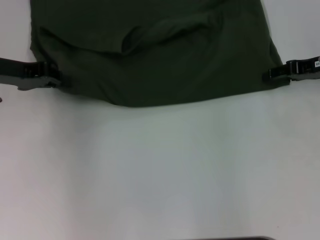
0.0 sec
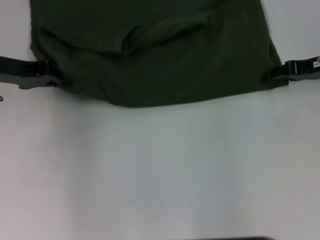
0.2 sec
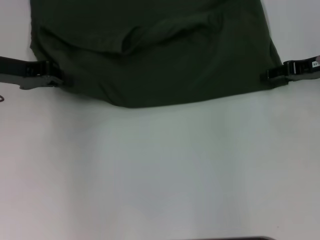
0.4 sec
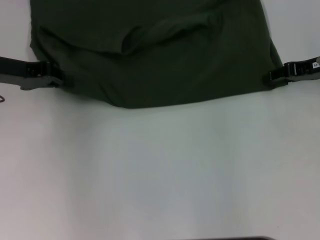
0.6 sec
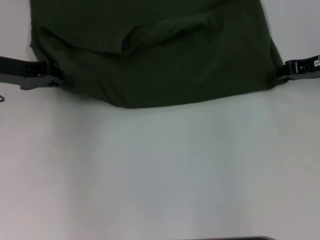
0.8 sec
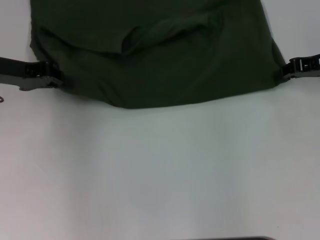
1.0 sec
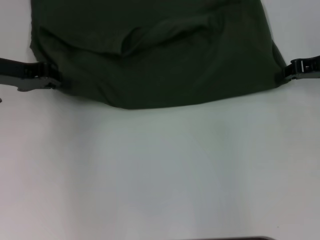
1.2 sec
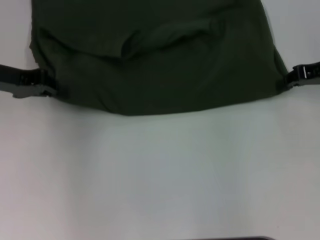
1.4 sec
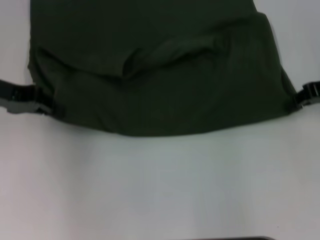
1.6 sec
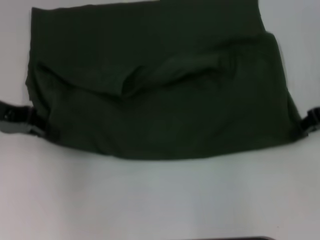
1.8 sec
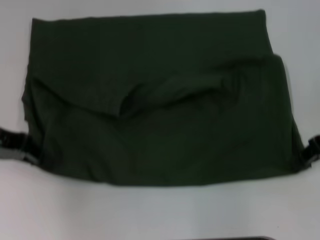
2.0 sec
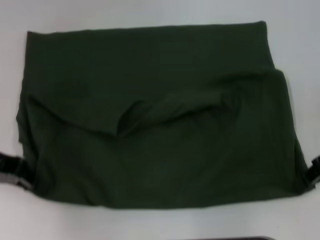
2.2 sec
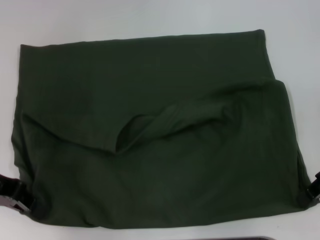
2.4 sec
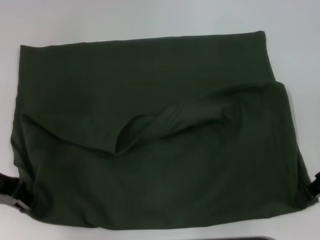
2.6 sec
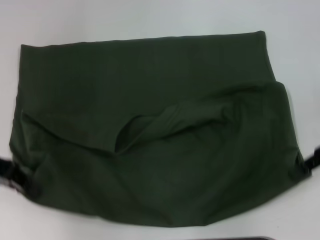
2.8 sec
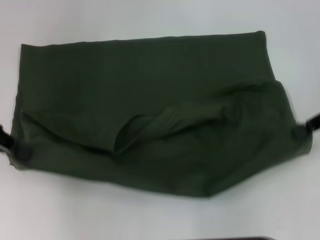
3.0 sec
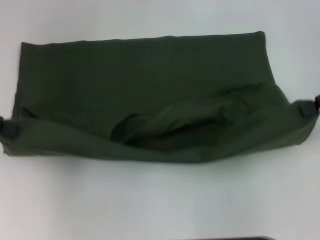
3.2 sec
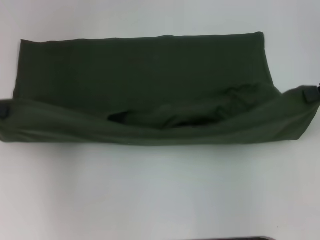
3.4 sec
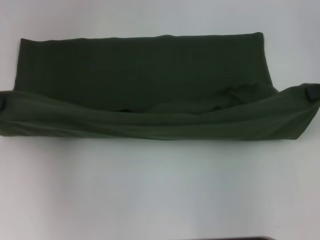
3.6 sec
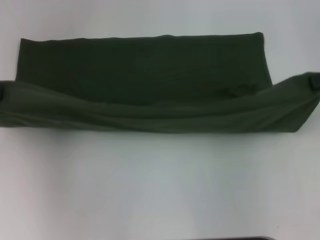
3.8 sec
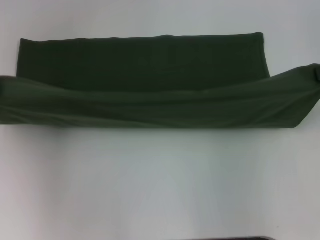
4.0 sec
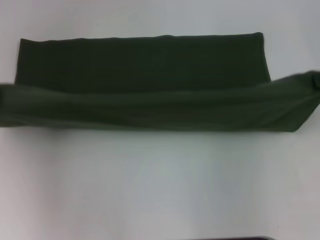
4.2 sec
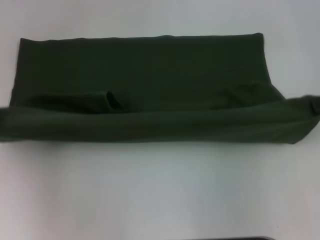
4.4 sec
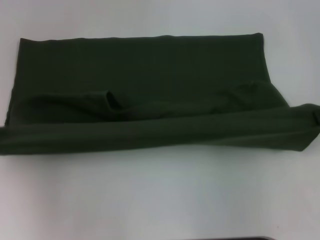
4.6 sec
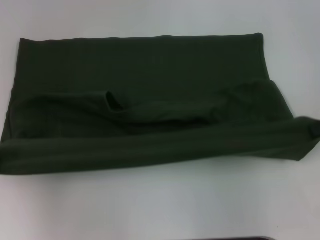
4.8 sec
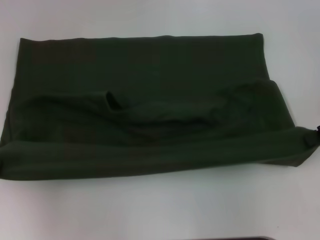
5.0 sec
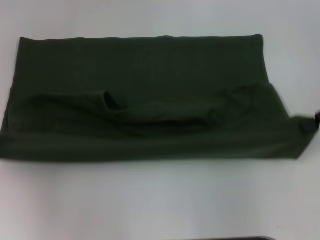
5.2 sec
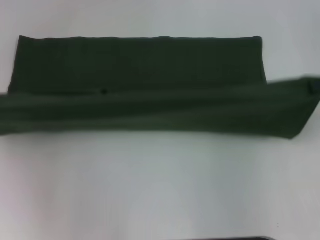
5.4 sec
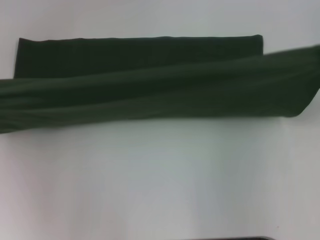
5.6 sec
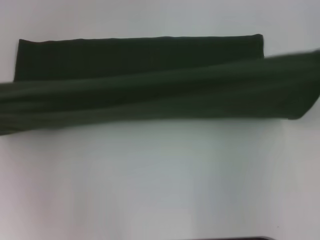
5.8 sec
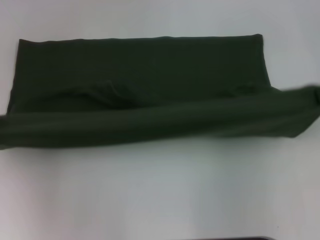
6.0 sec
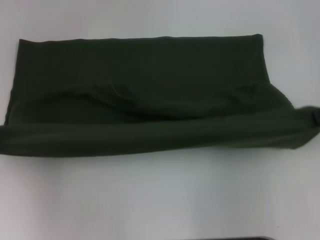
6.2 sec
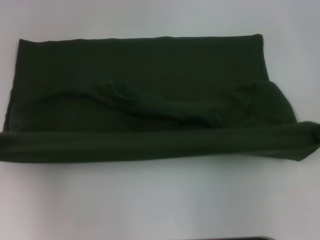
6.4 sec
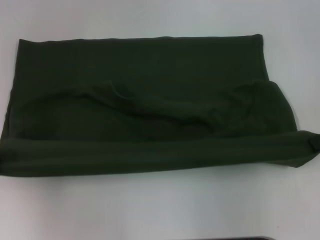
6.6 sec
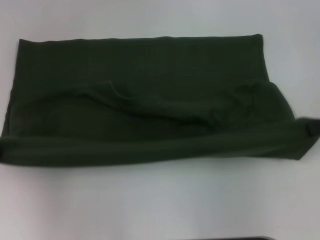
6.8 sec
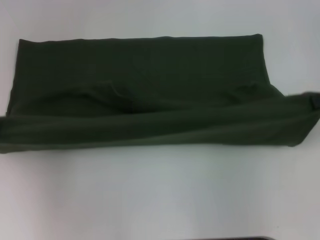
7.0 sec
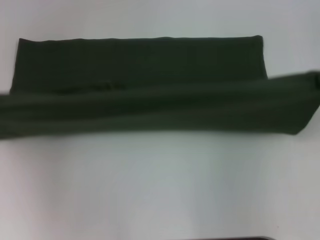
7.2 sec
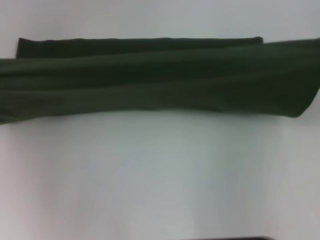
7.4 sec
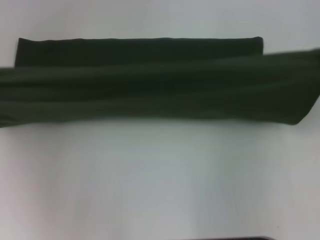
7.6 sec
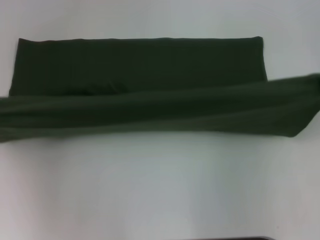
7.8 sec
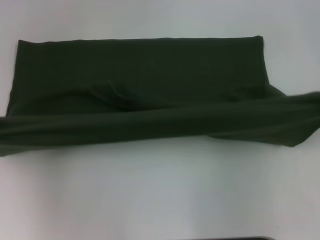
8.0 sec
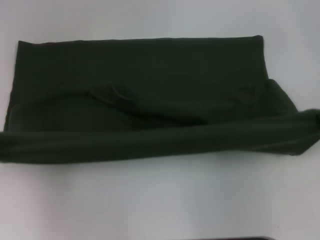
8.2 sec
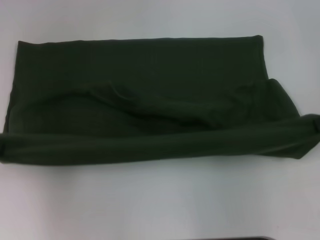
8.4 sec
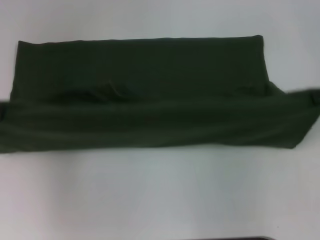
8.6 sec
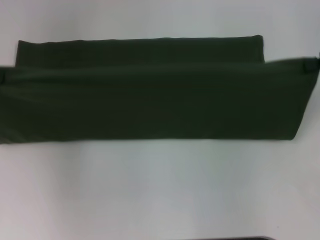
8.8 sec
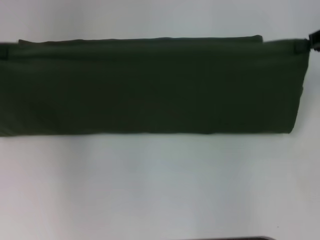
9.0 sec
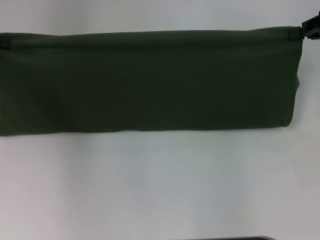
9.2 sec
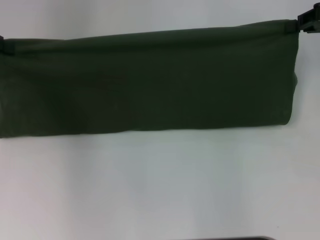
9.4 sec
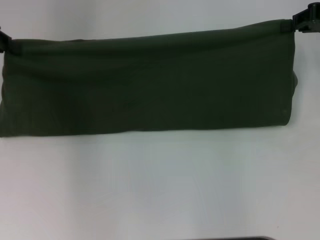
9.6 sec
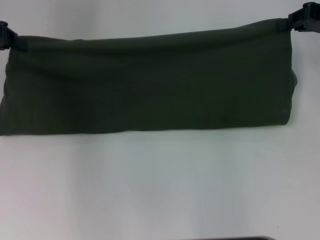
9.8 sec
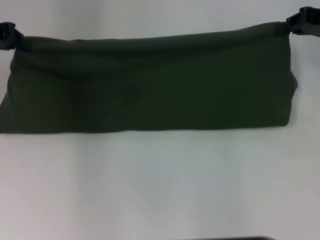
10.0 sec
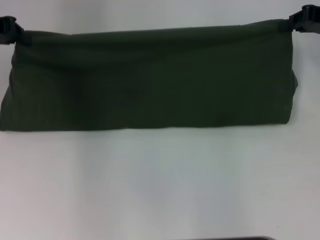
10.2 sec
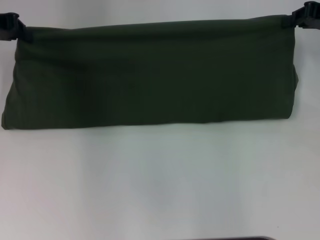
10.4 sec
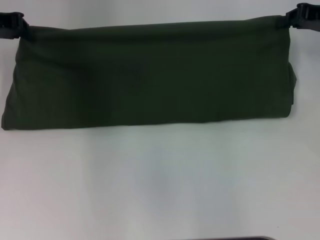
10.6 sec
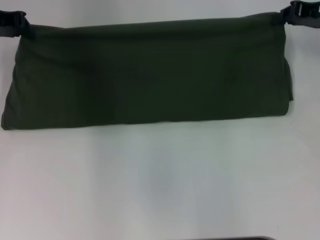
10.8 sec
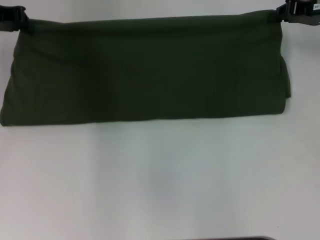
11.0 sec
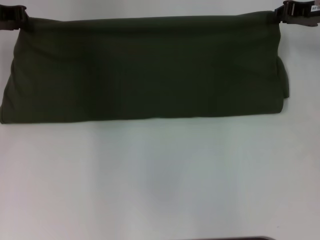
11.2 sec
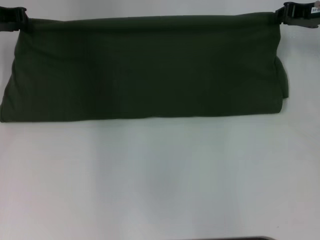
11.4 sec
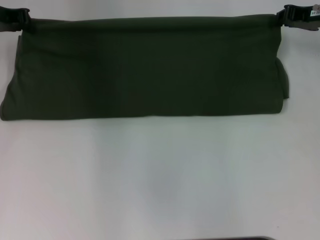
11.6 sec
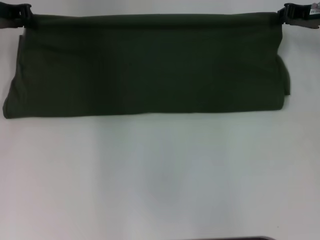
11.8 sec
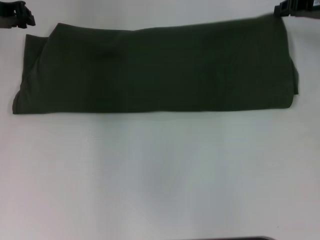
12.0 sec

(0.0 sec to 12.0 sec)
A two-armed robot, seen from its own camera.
Step, 0.0 sec - 2.2 sec: Pull the clothes with your left hand.
Step, 0.0 sec - 2.2 sec: Pull the clothes with your right hand.
0.0 sec - 1.6 sec: The right gripper closes its fingers.
1.6 sec - 3.0 sec: The left gripper ends up roughly 5 cm from where it was.
3.0 sec - 4.4 sec: The left gripper moves to the left, roughly 5 cm.
4.4 sec - 7.6 sec: The grippers move only a little.
7.6 sec - 9.0 sec: The left gripper moves forward, approximately 5 cm. The right gripper shifts by approximately 5 cm.
9.0 sec - 10.4 sec: The left gripper heads to the right, covering approximately 5 cm.
10.4 sec - 12.0 sec: The grippers stay close to where they were, moving slightly.

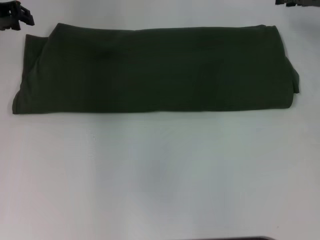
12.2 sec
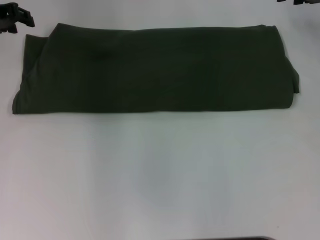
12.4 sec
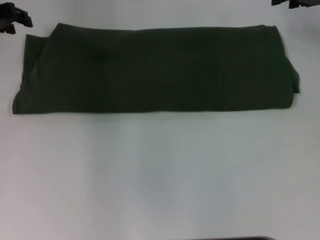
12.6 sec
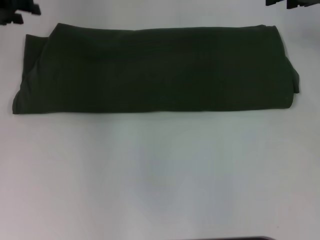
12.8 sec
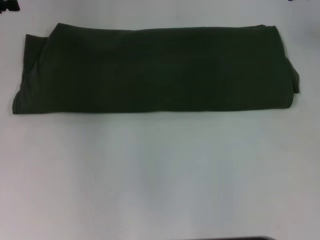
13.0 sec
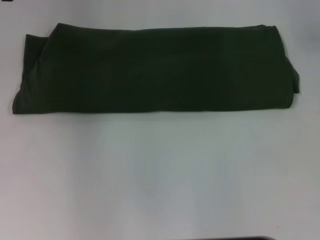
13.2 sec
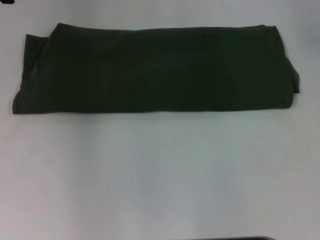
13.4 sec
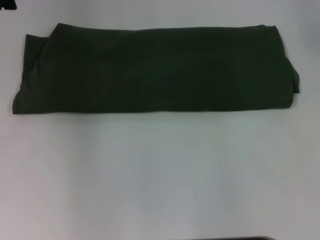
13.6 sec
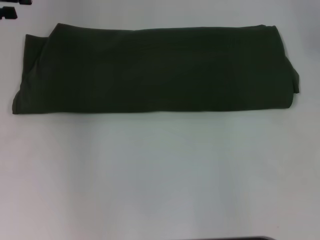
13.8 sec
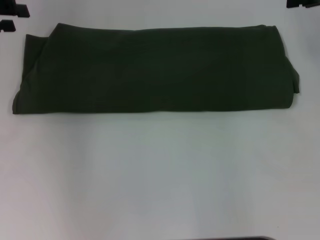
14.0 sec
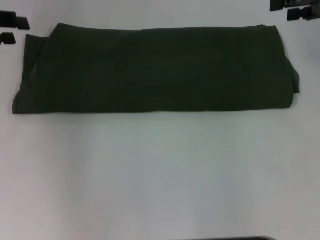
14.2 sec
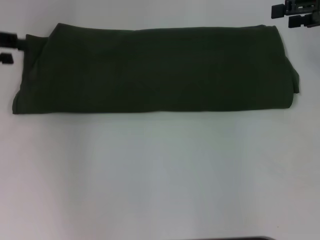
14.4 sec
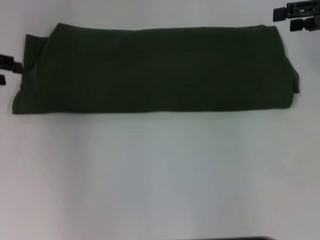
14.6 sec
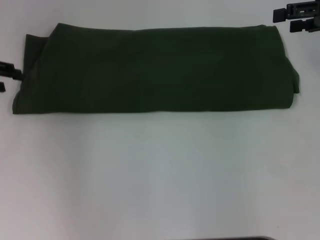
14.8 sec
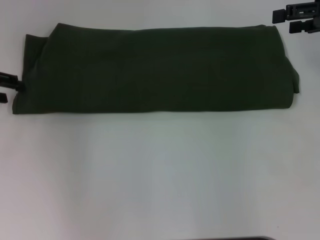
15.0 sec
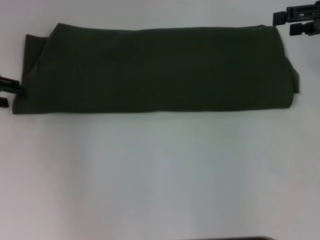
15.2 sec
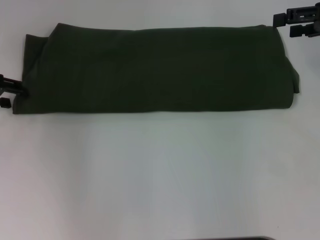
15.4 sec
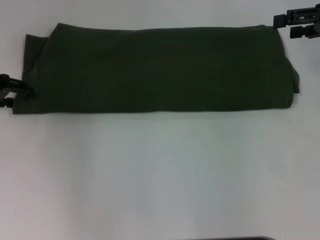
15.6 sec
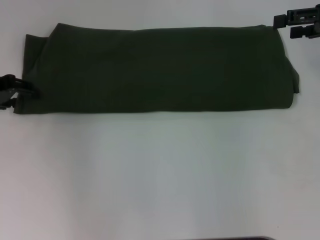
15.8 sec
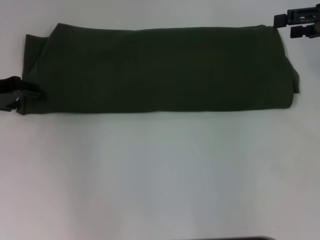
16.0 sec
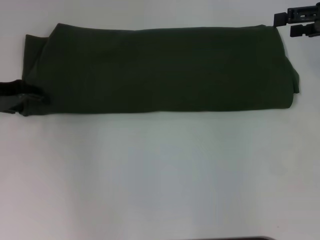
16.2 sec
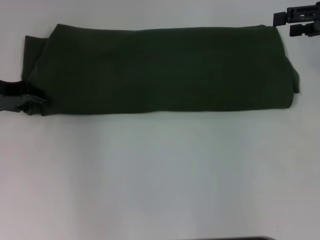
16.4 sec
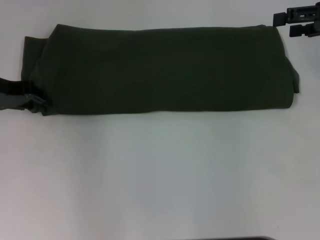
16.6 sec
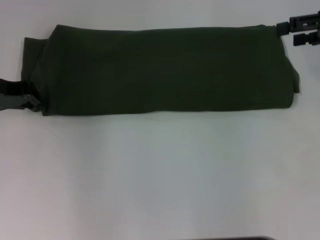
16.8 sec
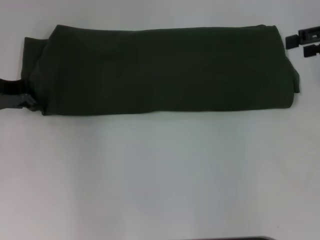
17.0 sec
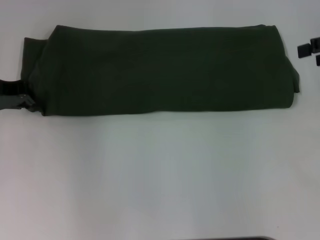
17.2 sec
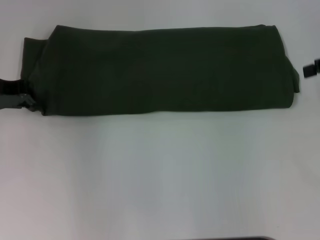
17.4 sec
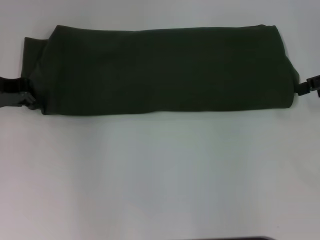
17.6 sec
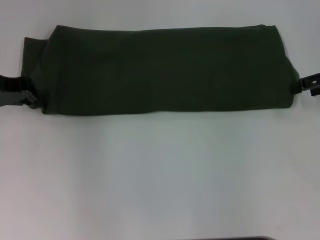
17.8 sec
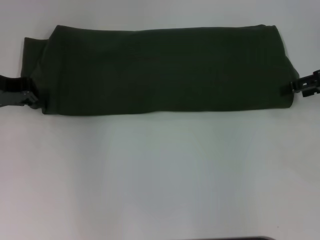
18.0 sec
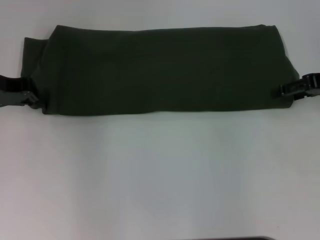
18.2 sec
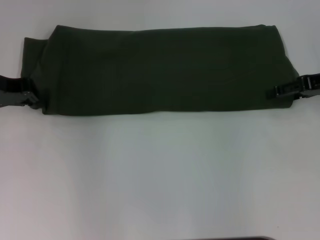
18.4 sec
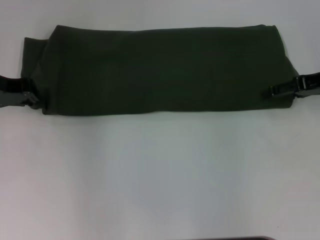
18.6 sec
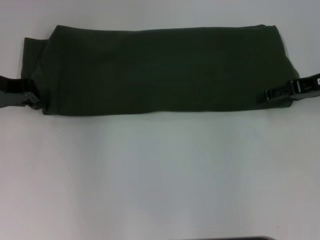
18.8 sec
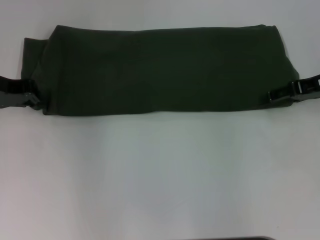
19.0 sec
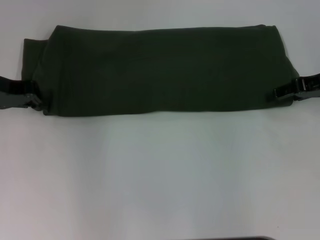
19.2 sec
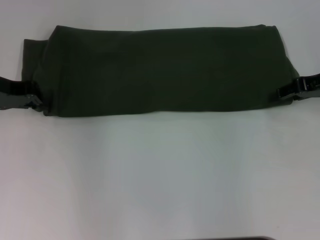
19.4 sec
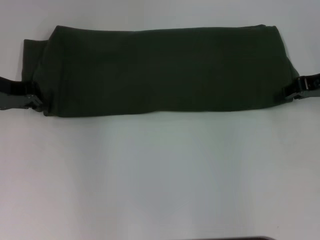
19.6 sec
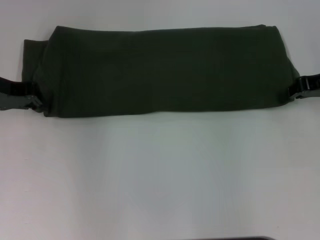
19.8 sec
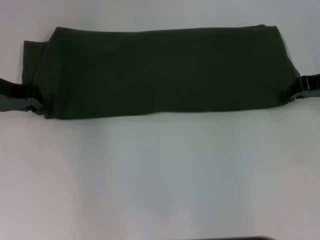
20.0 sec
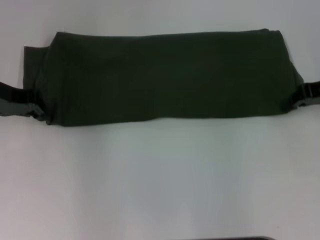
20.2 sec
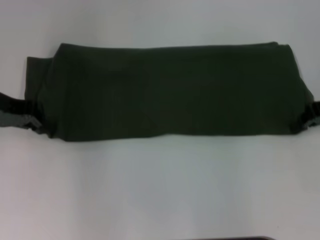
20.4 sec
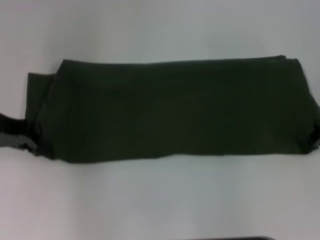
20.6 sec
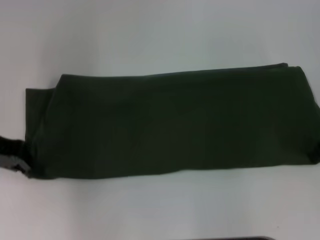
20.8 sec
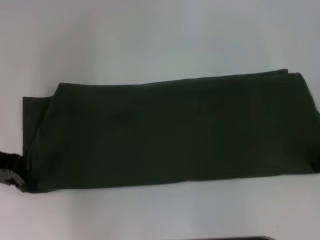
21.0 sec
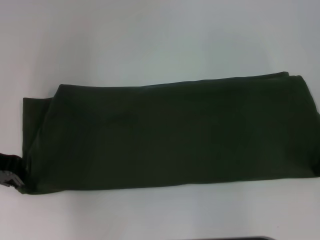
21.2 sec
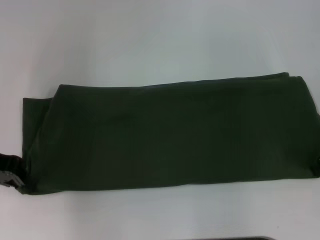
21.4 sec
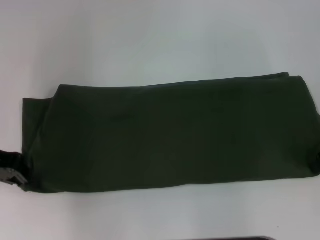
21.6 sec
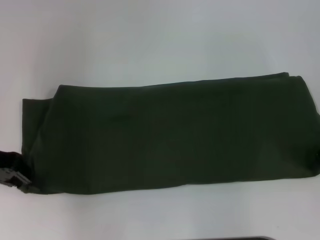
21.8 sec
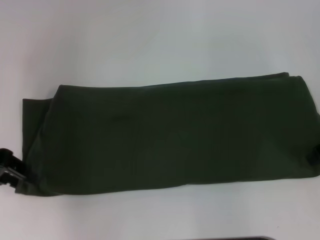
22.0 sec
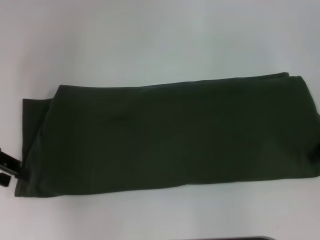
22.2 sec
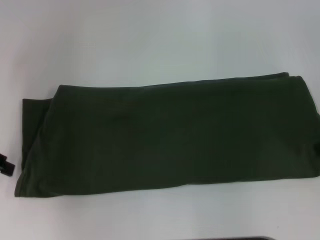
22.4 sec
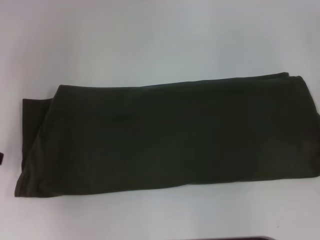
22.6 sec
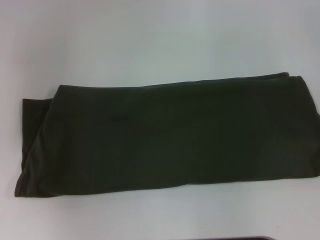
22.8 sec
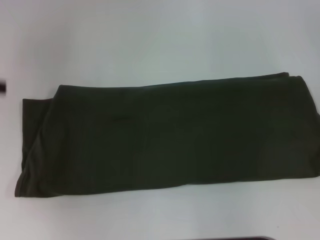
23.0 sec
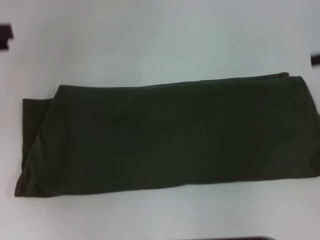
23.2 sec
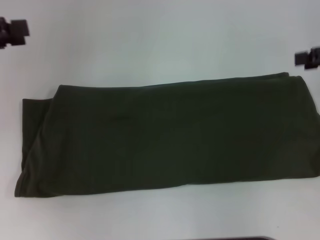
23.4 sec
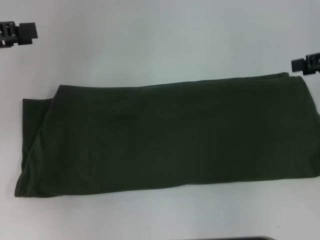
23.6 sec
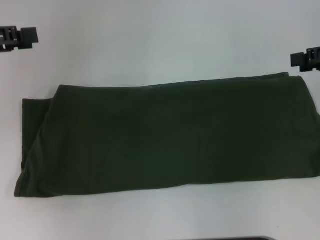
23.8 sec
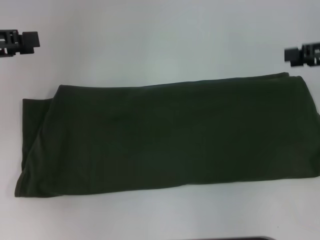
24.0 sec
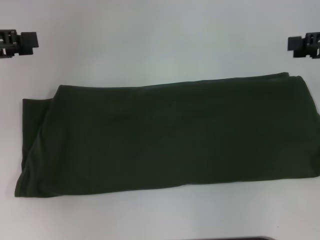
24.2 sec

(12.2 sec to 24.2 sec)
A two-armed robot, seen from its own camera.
Step, 12.6 sec - 22.4 sec: Pull the clothes with your left hand.
Step, 12.6 sec - 22.4 sec: Pull the clothes with your right hand.
12.2 sec - 13.8 sec: The left gripper ends up about 10 cm from where it was, and opens up.
13.8 sec - 15.2 sec: The left gripper is displaced downward by about 10 cm; the right gripper shifts by roughly 5 cm.
15.2 sec - 16.6 sec: The grippers move only a little.
16.6 sec - 18.2 sec: The right gripper goes some 5 cm downward; the left gripper closes.
19.8 sec - 21.2 sec: The left gripper heads backward, covering roughly 5 cm.
21.2 sec - 22.6 sec: The right gripper shifts by roughly 5 cm, and opens its fingers. The left gripper shifts roughly 5 cm to the left, and opens its fingers.
